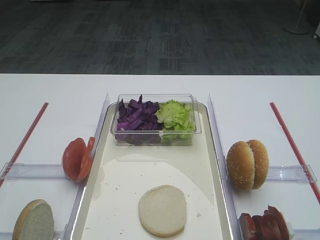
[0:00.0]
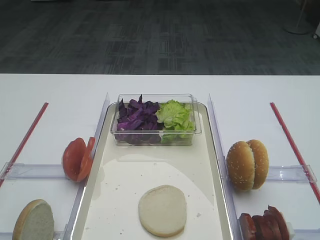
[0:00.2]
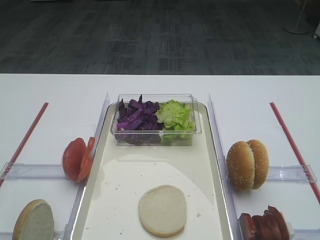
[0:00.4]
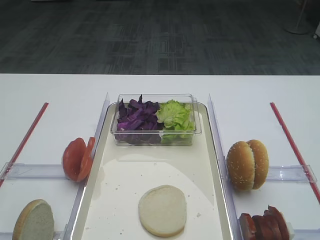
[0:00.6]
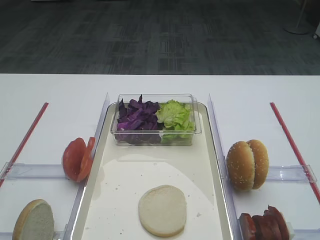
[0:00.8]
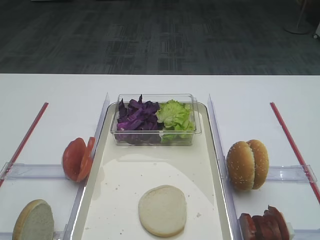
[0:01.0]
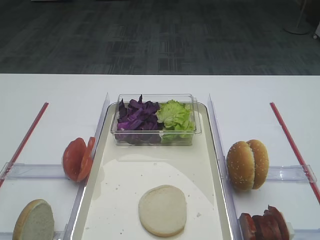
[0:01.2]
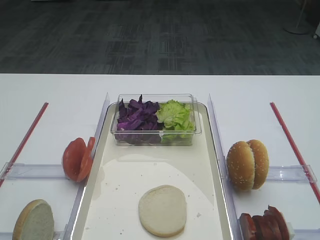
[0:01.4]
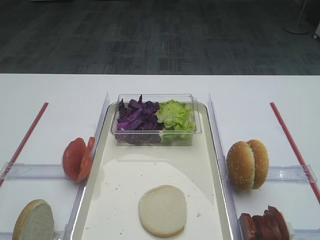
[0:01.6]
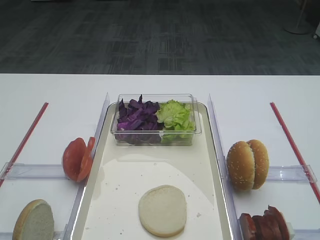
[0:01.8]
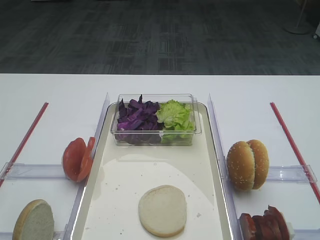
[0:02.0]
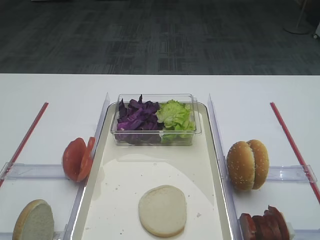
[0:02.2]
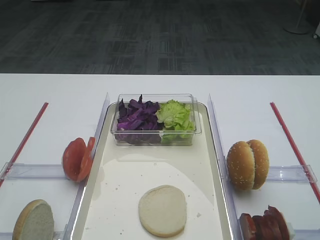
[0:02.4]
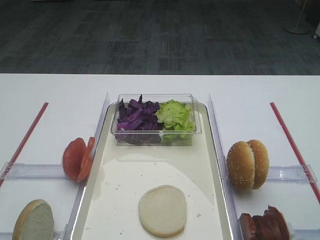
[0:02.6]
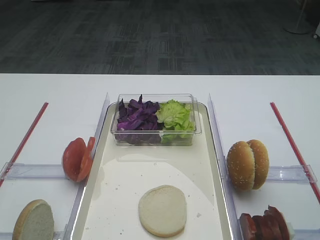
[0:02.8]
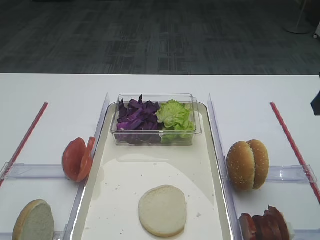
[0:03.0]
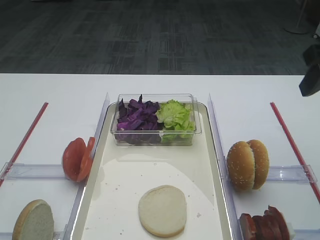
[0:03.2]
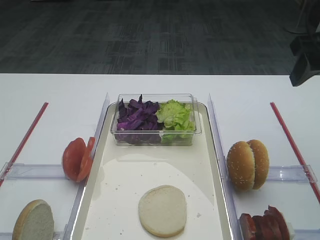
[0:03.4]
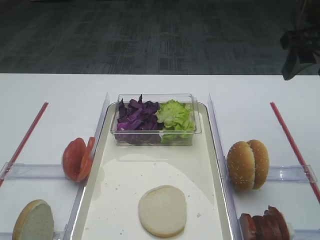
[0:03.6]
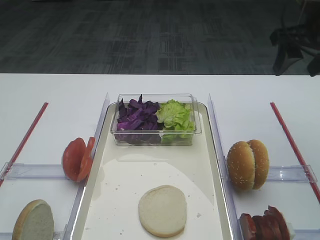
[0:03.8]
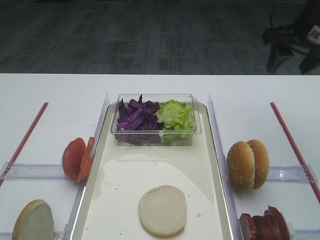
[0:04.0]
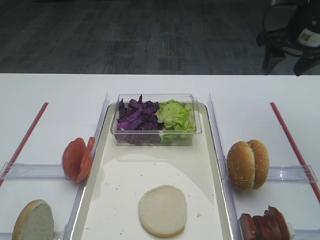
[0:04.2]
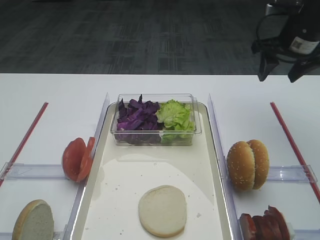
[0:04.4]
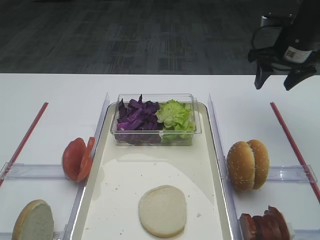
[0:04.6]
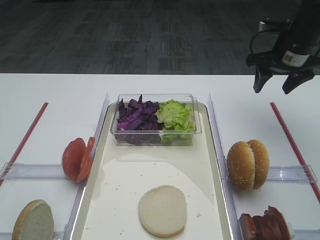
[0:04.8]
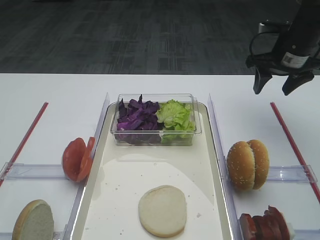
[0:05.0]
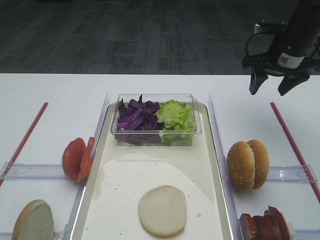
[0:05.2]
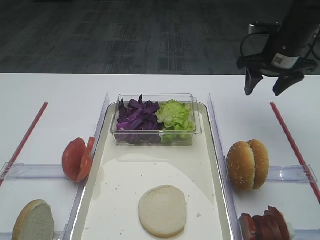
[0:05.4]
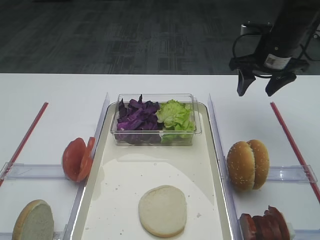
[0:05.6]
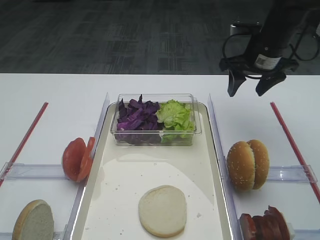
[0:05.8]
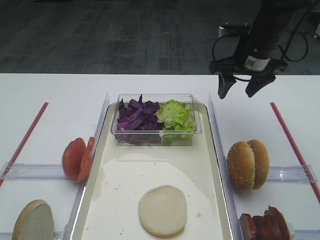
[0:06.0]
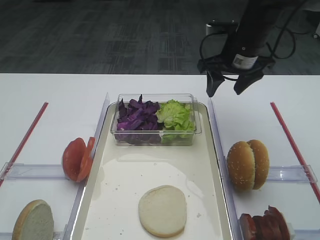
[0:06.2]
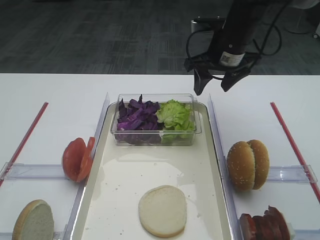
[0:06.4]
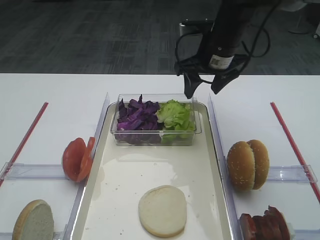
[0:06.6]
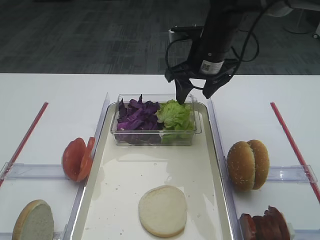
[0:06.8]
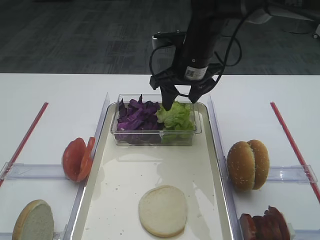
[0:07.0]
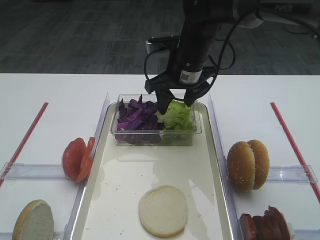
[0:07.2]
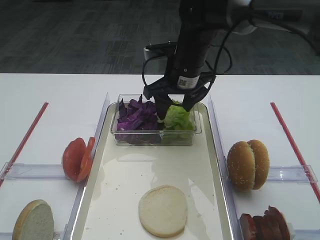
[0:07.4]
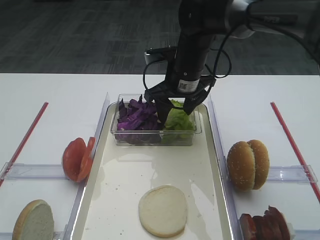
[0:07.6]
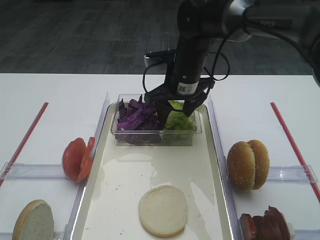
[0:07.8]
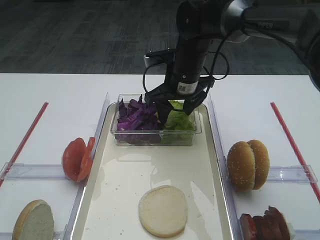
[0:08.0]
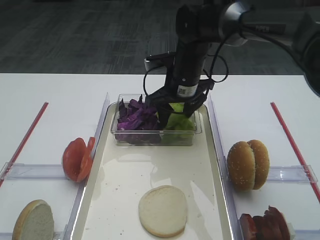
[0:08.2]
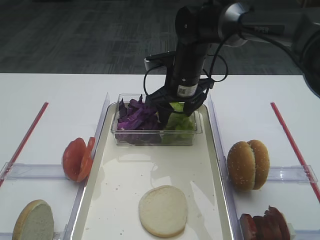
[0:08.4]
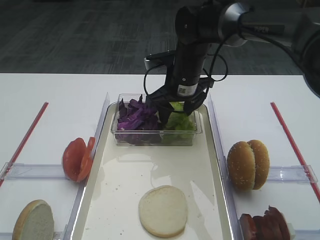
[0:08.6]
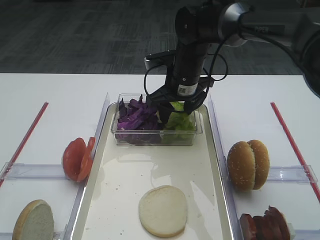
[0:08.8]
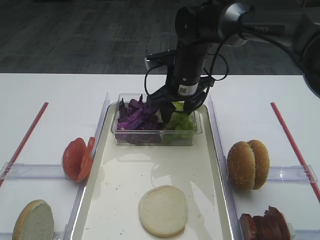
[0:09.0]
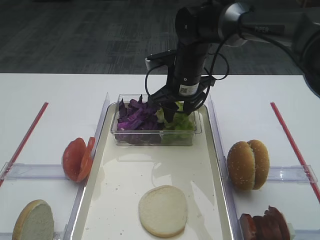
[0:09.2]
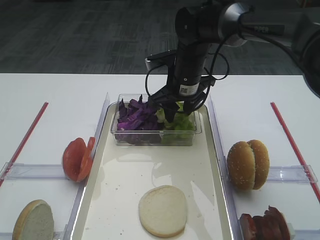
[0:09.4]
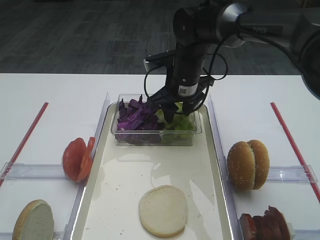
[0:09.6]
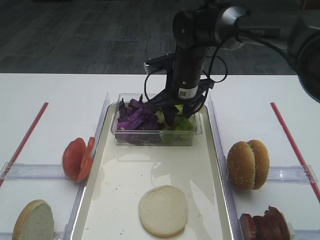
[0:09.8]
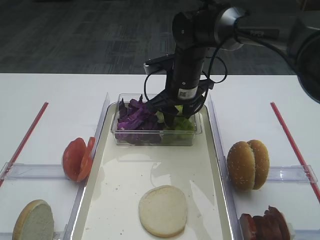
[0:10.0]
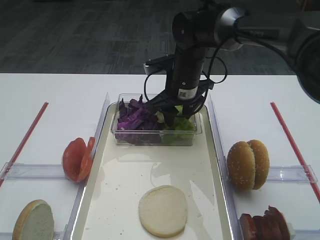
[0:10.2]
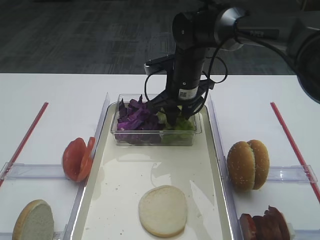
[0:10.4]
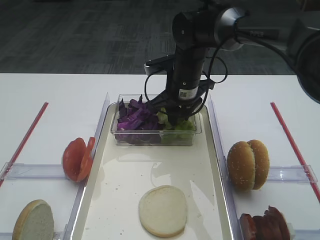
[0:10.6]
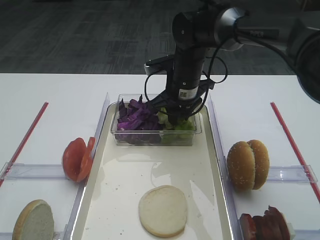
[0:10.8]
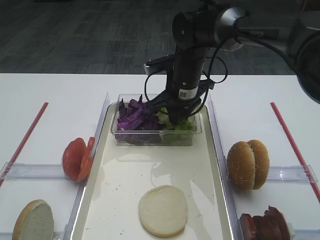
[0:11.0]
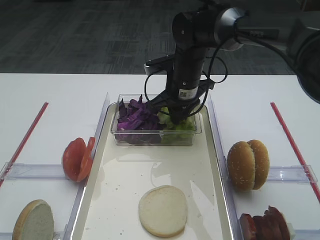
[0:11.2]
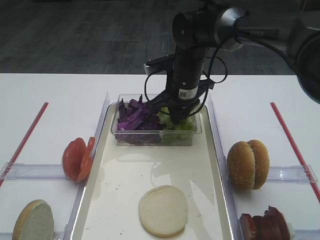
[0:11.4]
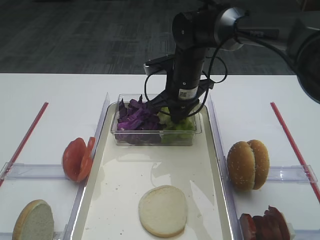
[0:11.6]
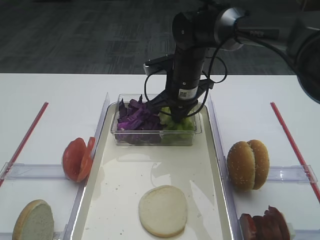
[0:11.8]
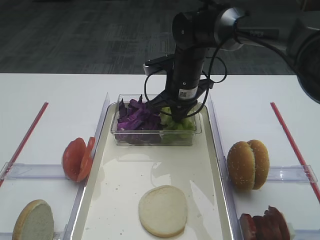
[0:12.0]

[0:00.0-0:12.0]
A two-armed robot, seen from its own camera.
0:03.0 to 0:04.4: The right gripper heads forward, covering some 20 cm.
0:04.4 to 0:06.0: The right gripper moves to the left, about 10 cm.
0:06.0 to 0:07.6: The right gripper travels to the left by some 15 cm.
0:07.6 to 0:09.0: The grippers stay close to where they were, moving slightly.
0:09.0 to 0:10.4: Neither gripper changes place.

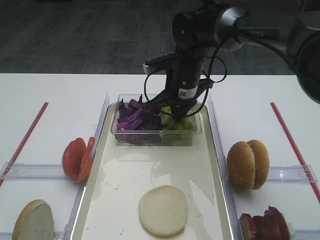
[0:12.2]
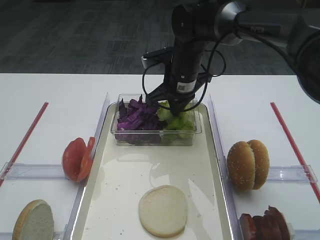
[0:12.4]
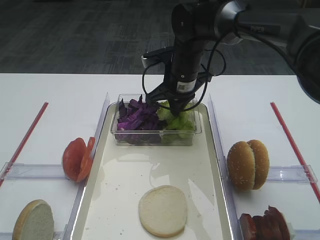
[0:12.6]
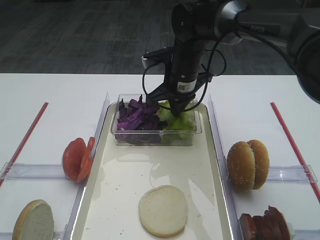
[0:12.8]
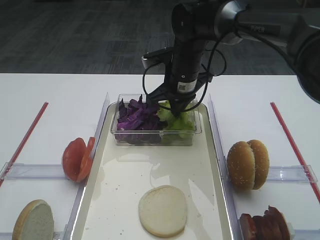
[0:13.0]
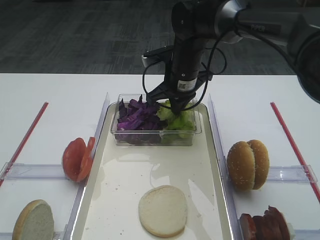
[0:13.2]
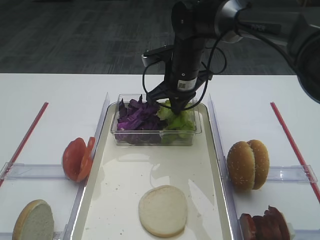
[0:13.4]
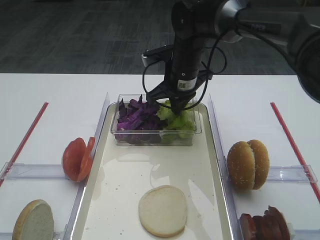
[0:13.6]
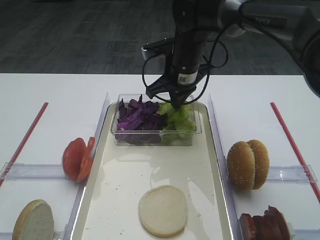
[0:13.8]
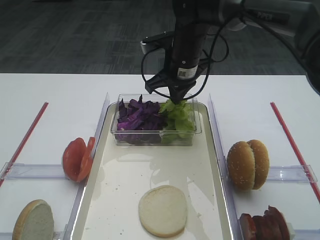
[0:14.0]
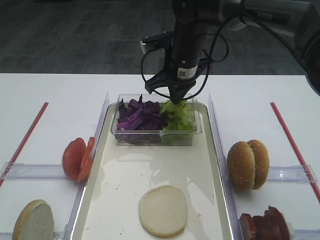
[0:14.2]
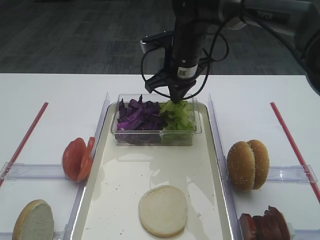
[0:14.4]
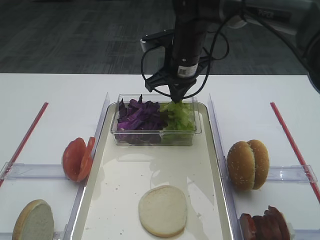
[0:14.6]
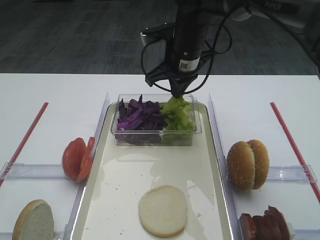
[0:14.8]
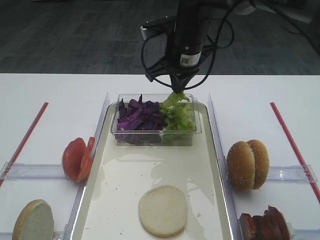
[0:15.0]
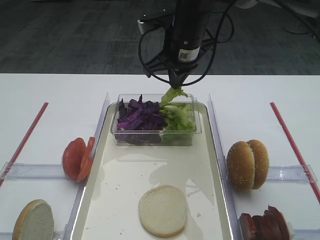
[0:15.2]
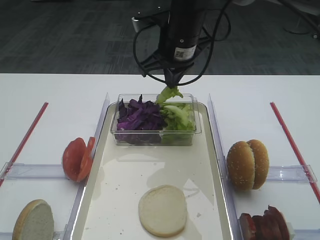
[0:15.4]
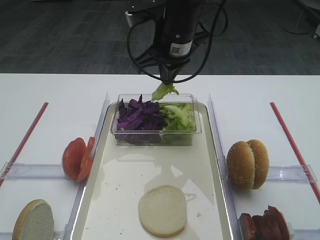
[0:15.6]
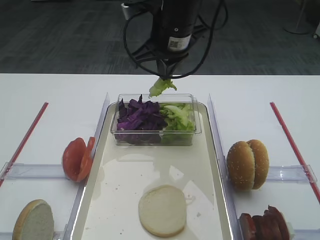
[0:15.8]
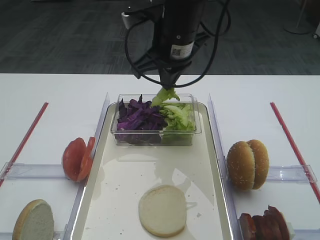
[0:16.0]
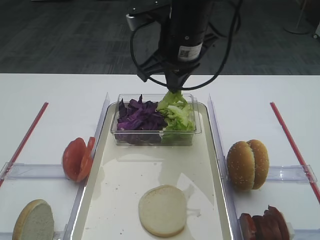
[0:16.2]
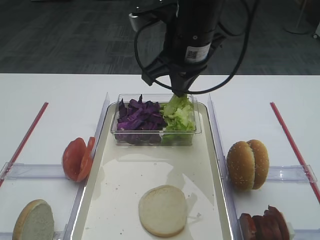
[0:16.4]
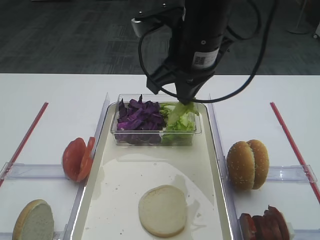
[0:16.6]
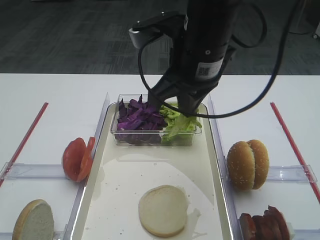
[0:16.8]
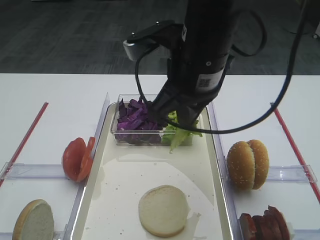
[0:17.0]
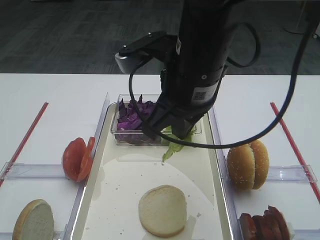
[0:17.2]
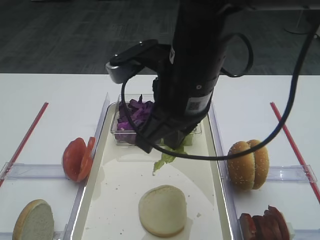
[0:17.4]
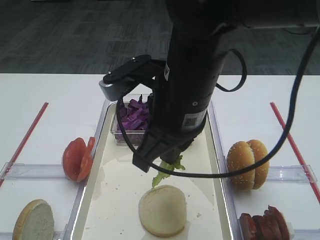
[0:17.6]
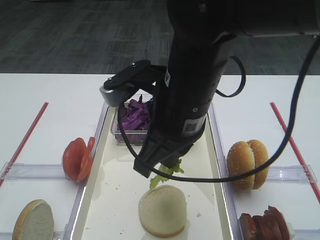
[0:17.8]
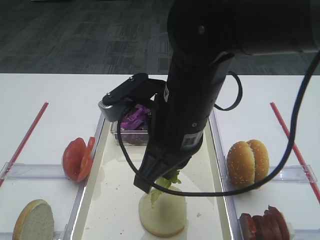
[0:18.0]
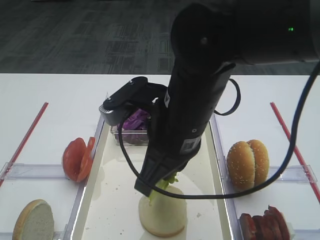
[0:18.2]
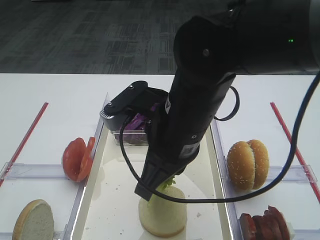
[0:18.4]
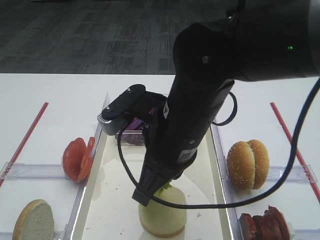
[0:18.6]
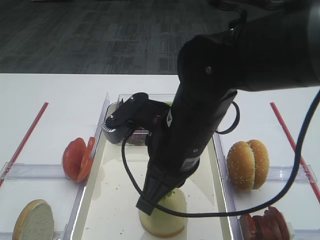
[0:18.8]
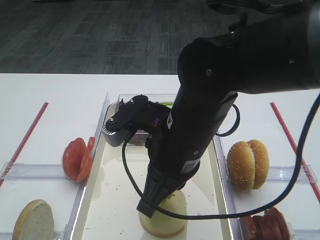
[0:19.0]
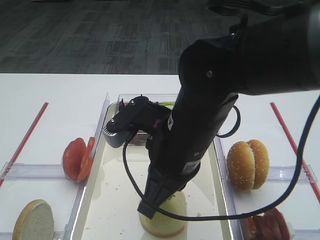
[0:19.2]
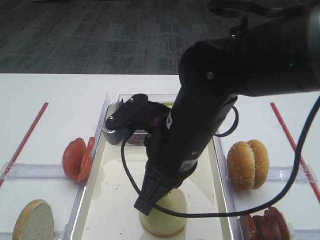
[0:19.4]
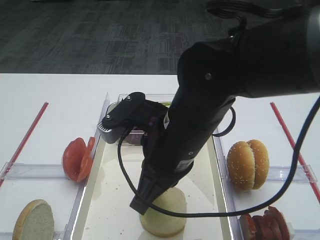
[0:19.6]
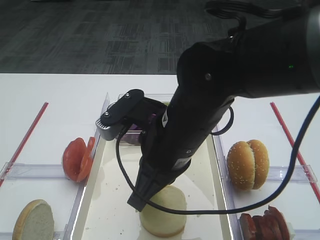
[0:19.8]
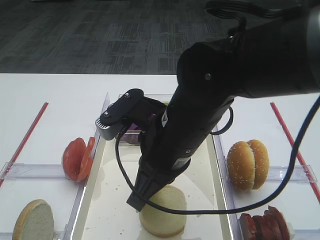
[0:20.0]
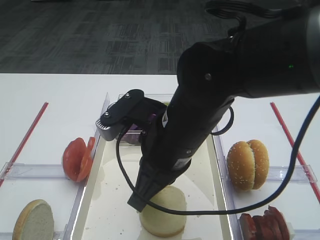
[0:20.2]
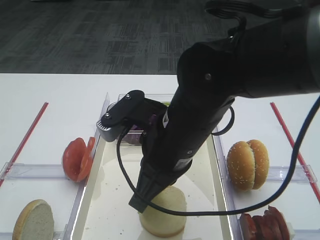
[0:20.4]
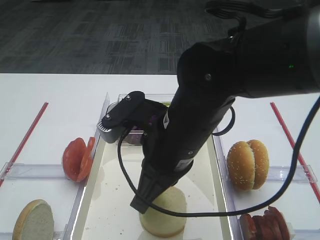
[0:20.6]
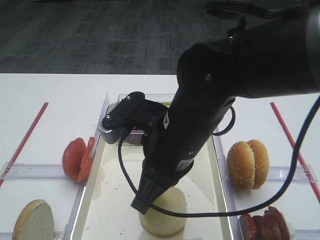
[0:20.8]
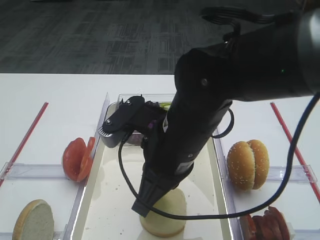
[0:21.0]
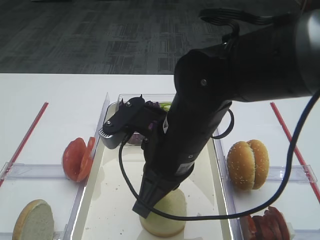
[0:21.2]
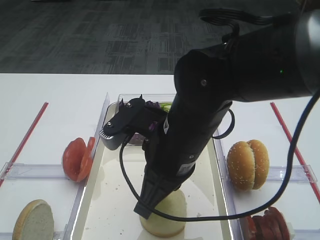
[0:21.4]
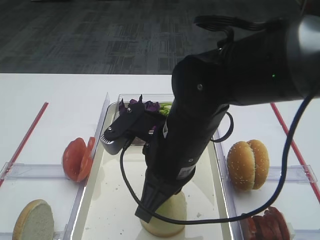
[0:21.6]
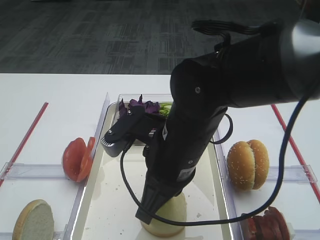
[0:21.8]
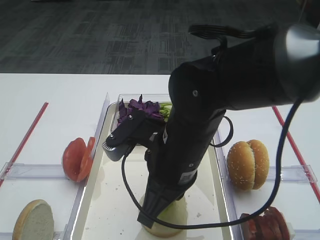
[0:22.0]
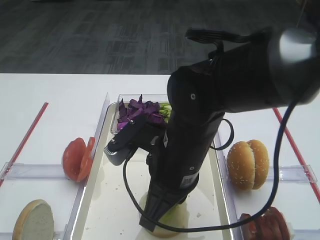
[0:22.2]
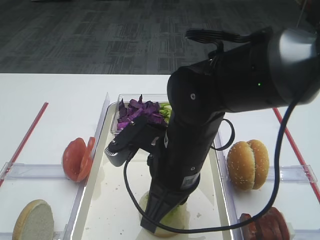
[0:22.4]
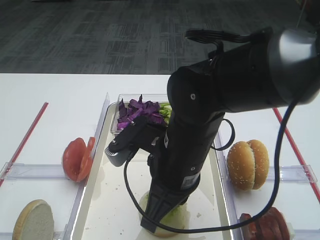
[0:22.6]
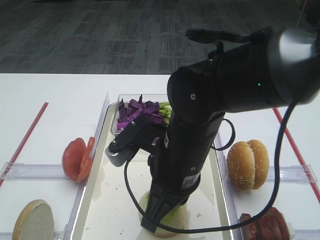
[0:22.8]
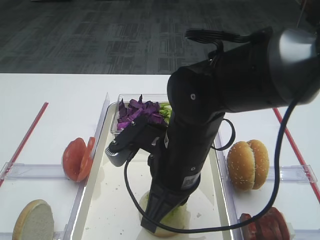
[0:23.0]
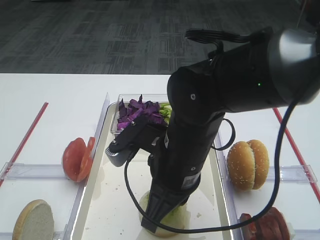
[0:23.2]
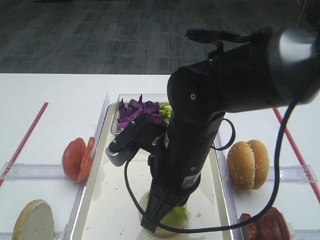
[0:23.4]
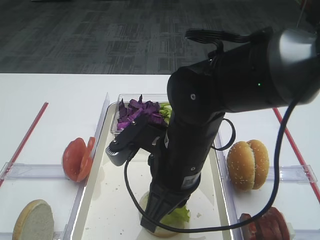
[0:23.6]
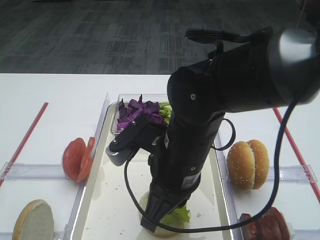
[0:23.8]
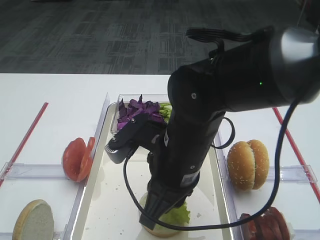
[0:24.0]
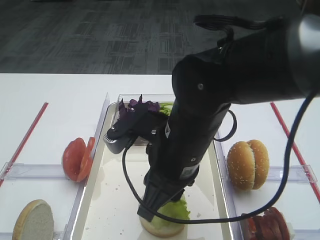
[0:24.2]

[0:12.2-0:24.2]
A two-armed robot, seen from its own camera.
Step, 0:12.2 to 0:15.4: Pick up the lettuce leaf with the right gripper.
0:12.2 to 0:13.8: The grippers move only a little.
0:13.8 to 0:15.2: The right gripper goes roughly 5 cm upward.
0:15.2 to 0:16.6: The right gripper shifts about 10 cm backward.
0:16.6 to 0:18.2: The right gripper heads backward and downward, covering some 10 cm.
0:18.2 to 0:19.8: The grippers move only a little.
0:19.8 to 0:21.2: Neither gripper changes place.
0:21.2 to 0:22.6: The grippers make only small movements.
0:22.6 to 0:24.2: The right gripper opens its fingers.
